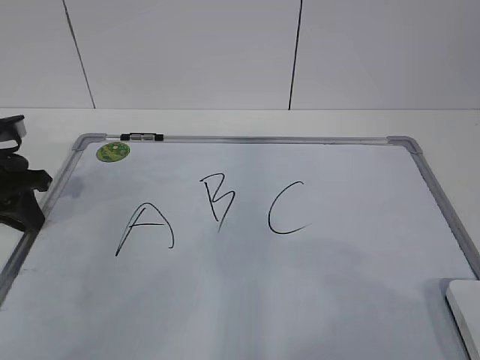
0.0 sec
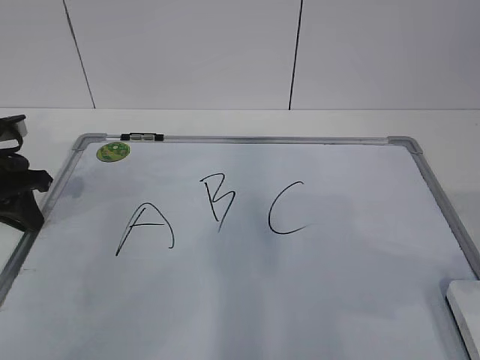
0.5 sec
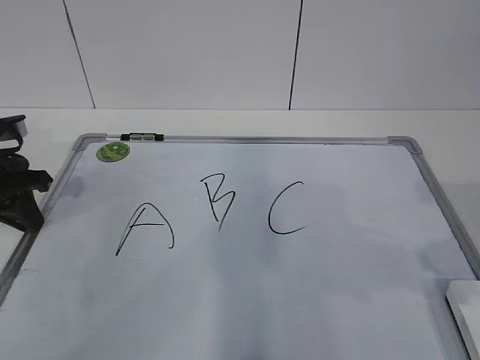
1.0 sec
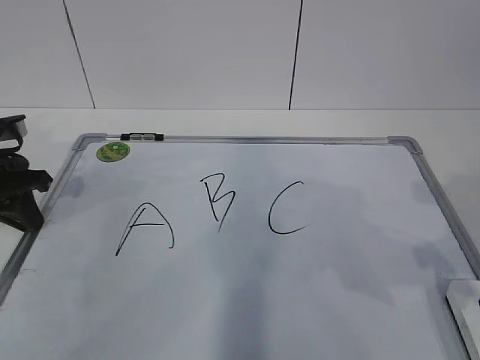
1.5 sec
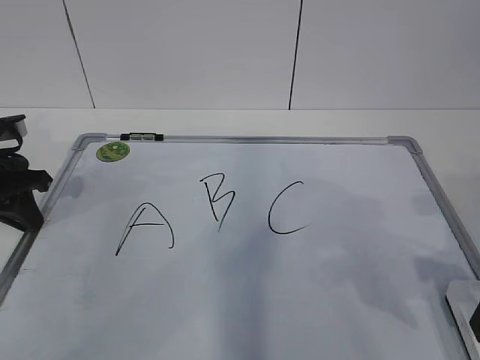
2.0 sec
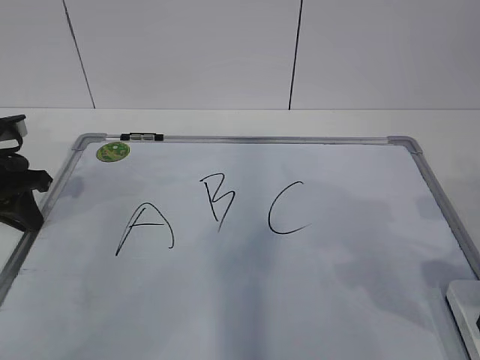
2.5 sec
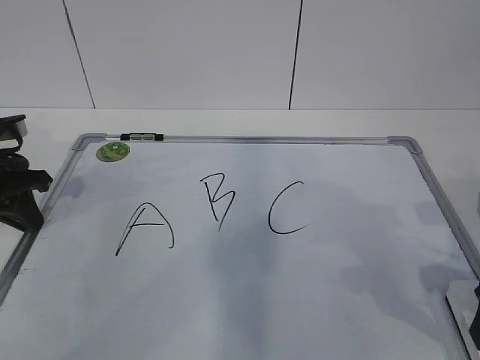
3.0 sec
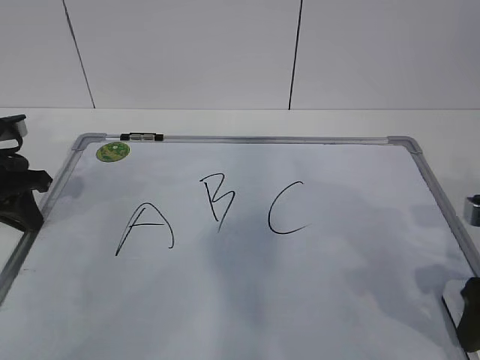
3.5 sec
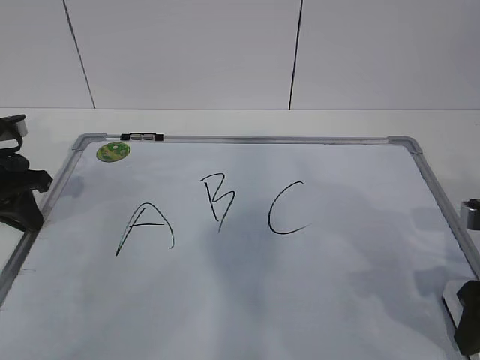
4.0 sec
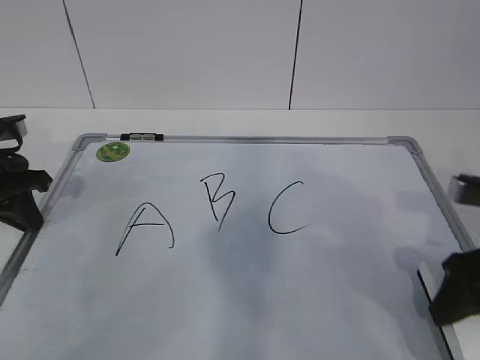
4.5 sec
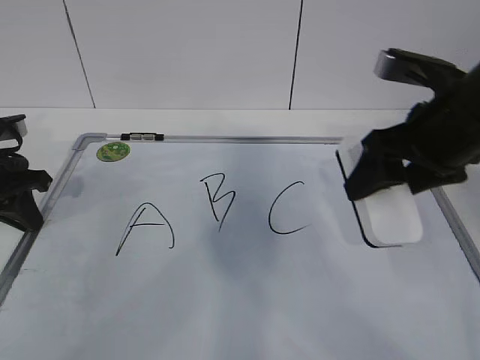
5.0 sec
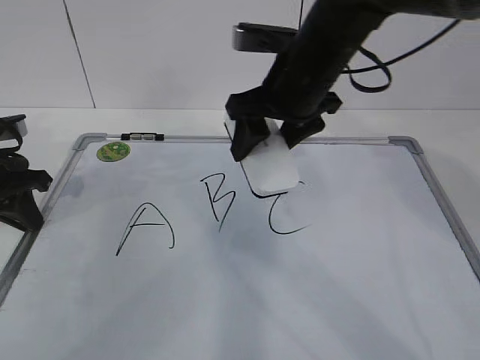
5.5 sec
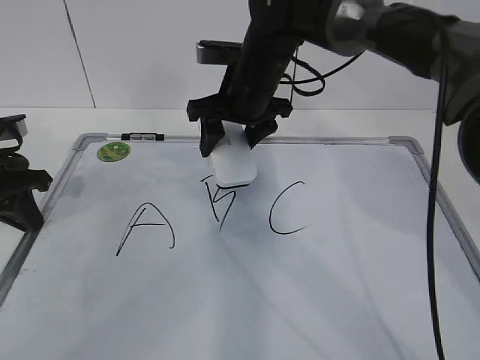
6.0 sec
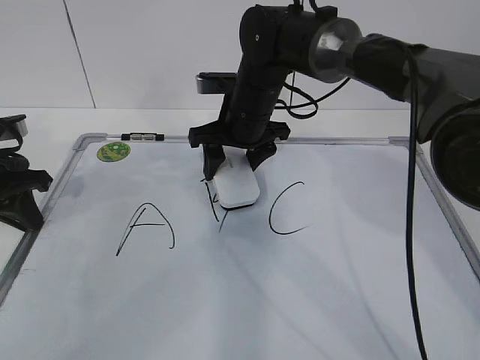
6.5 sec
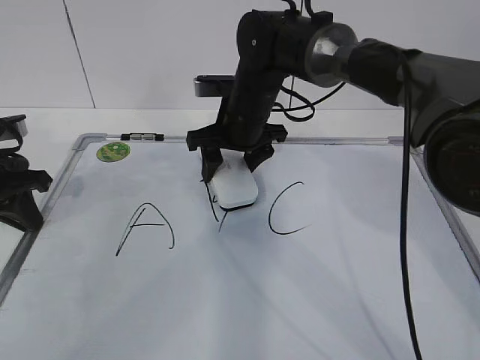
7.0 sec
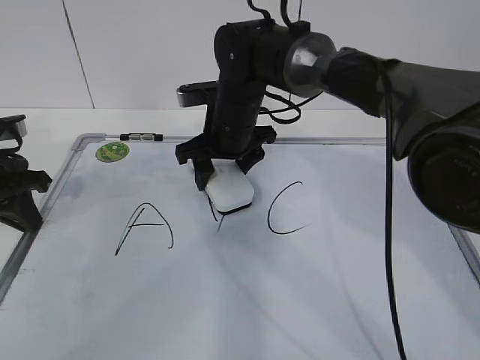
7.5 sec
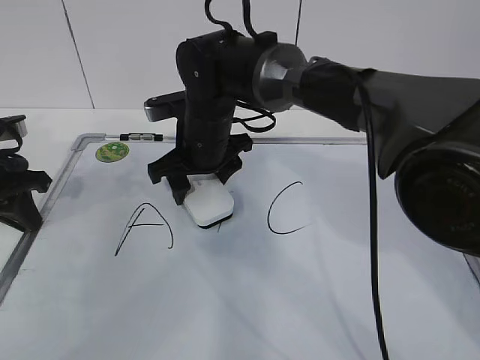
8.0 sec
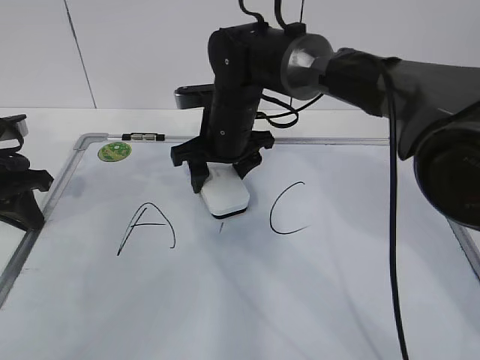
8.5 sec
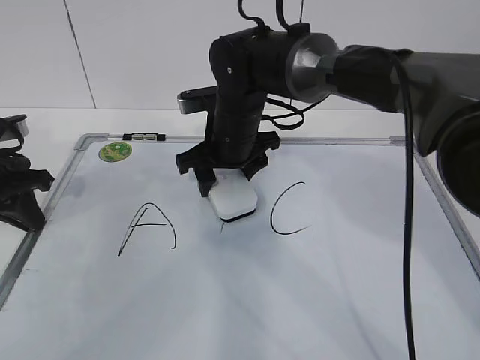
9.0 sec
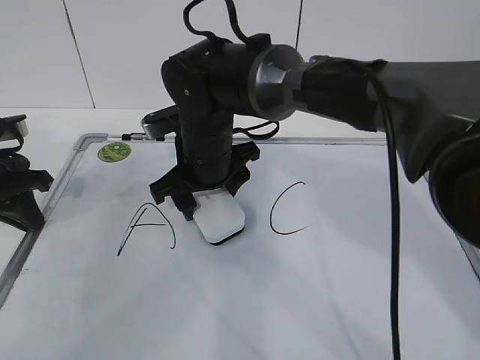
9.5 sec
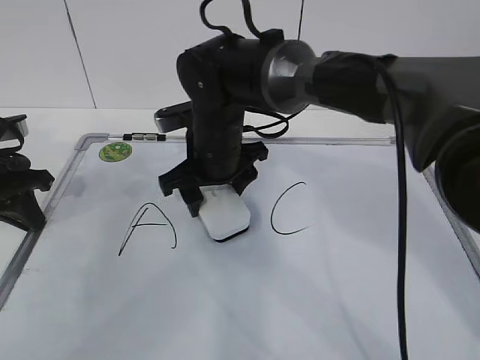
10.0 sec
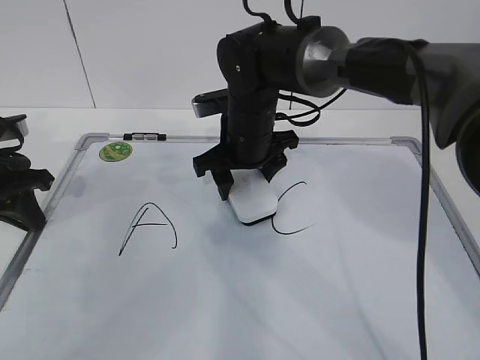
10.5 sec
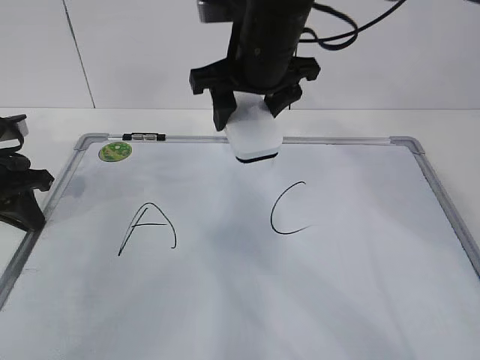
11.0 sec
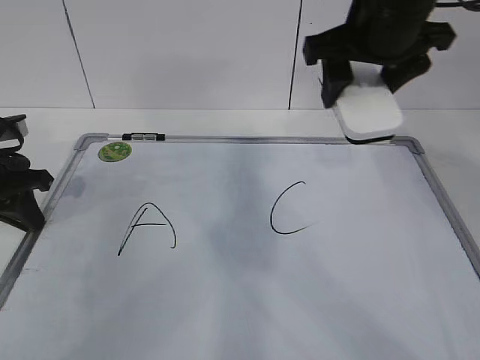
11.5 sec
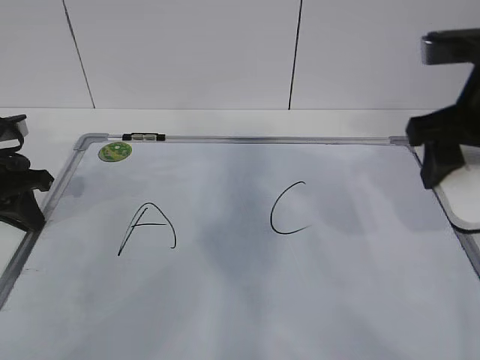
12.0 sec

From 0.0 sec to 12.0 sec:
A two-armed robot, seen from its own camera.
Task of the whole recording: pick up the eraser on the blackboard and erase the letter "B".
Step, from 2.5 sec to 7.0 sec: Erase the letter B with your right hand.
Step, from 7.5 sec to 10.5 sec: Put down the eraser with your right hand.
From 0.0 sec to 2.0 sec: The right gripper shifts about 20 cm forward.
From 2.0 sec to 4.0 sec: The grippers stay close to where they were, moving slightly.
From 4.0 sec to 6.0 sec: The right gripper is displaced to the left and forward by about 35 cm.
From 6.0 sec to 8.0 sec: The right gripper is displaced downward and to the left by approximately 10 cm.
From 8.0 sec to 10.0 sec: The grippers stay close to where they were, moving slightly.
From 10.0 sec to 12.0 sec: The right gripper shifts about 30 cm to the right, upward and backward.

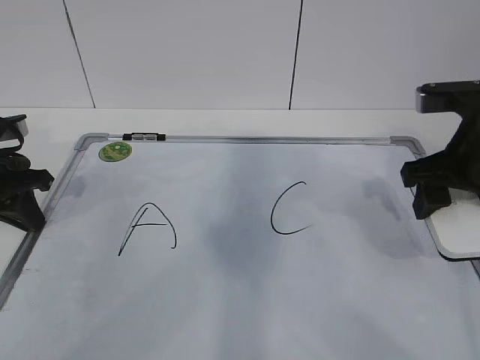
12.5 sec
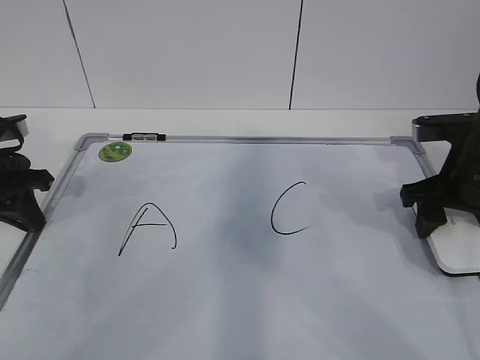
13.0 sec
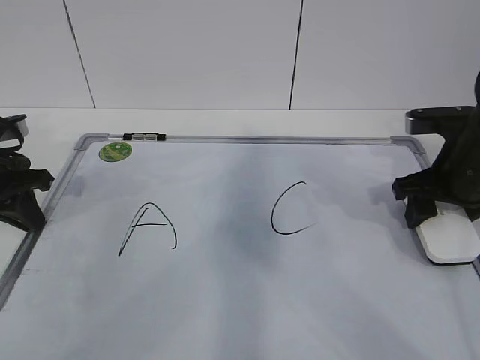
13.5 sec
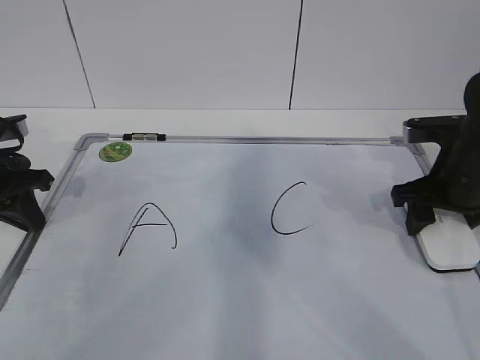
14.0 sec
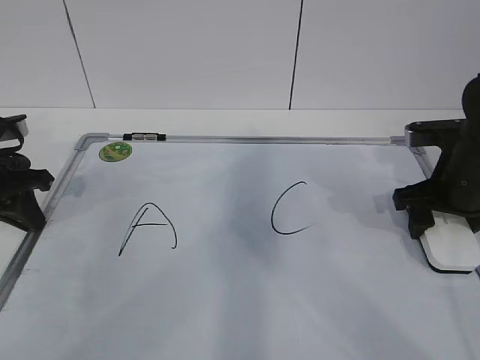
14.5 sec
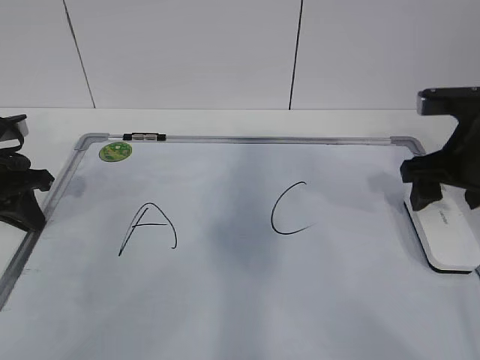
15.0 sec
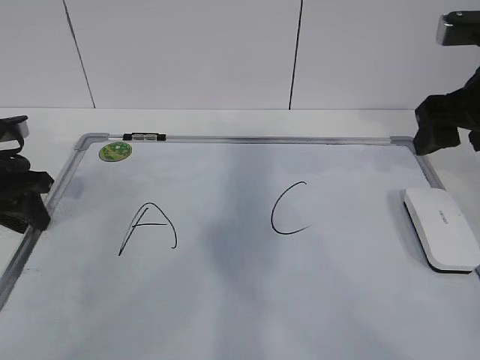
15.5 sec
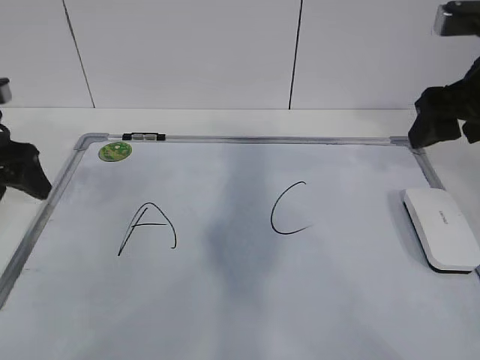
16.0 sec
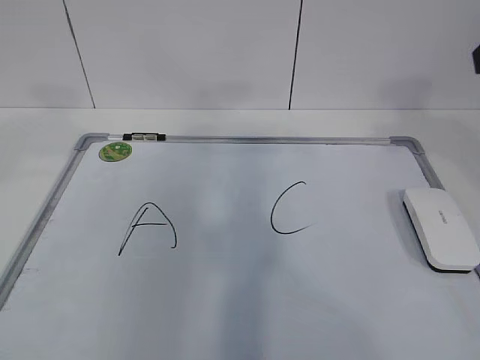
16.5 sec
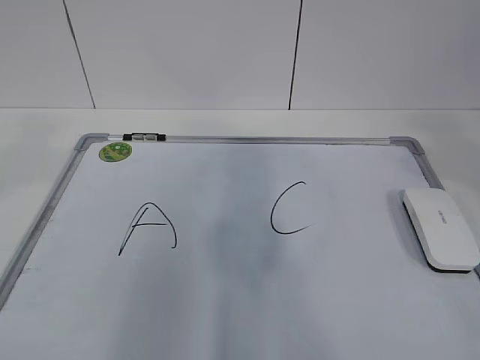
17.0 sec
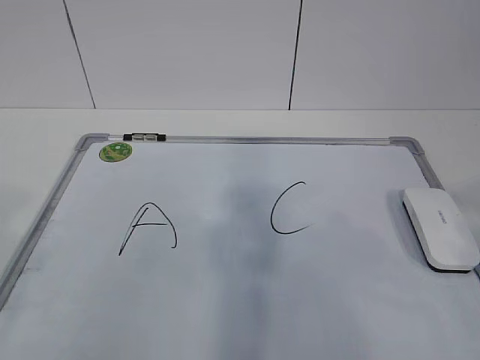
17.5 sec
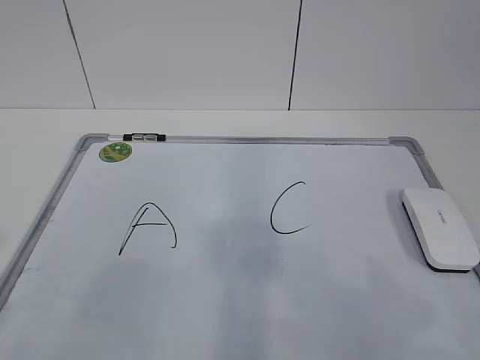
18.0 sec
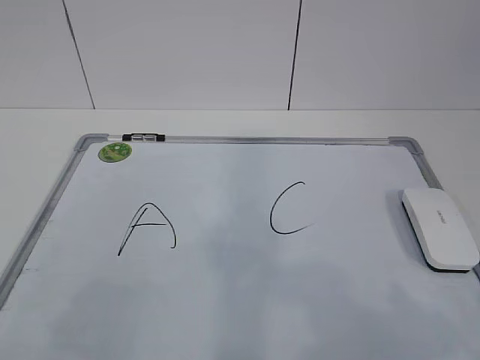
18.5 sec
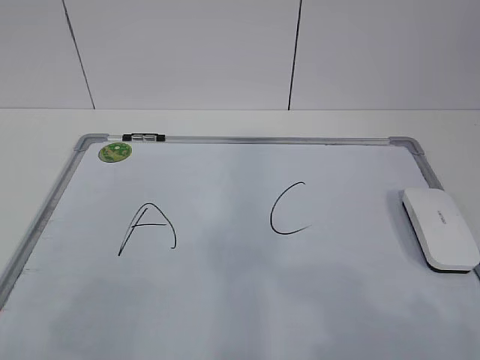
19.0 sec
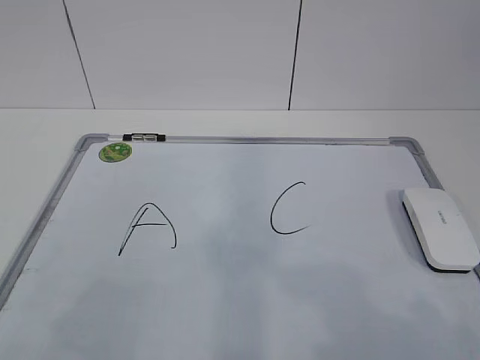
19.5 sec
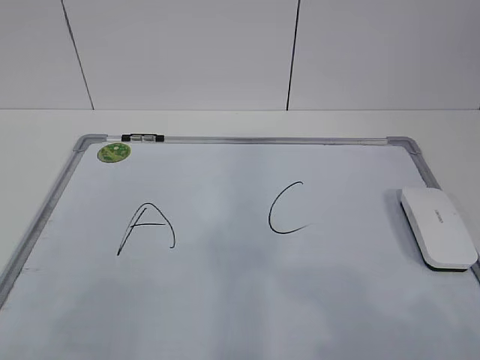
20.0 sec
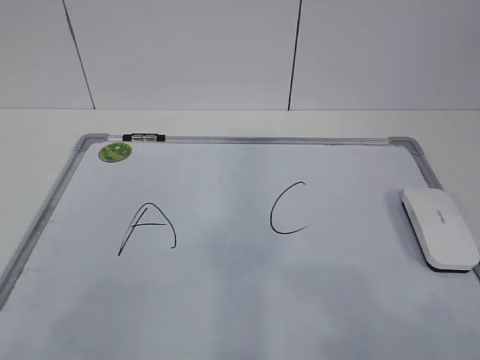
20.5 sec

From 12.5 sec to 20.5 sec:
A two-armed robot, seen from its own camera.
Task of the whole recording: pick up the eraser on the blackboard and erase the letter "B".
From 12.5 sec to 14.5 sec: The right gripper goes about 5 cm downward.
From 14.5 sec to 16.5 sec: Both grippers travel together upward and backward, some 20 cm. The left gripper opens.
From 16.5 sec to 18.5 sec: The left gripper travels backward by about 25 cm; the right gripper travels backward and downward by approximately 25 cm.
